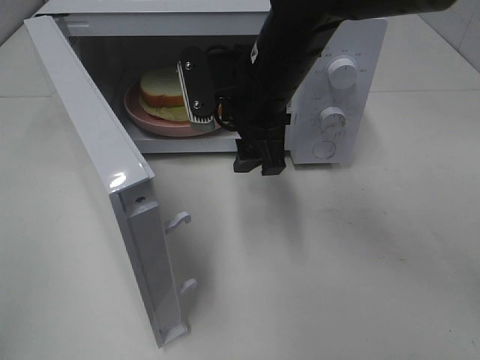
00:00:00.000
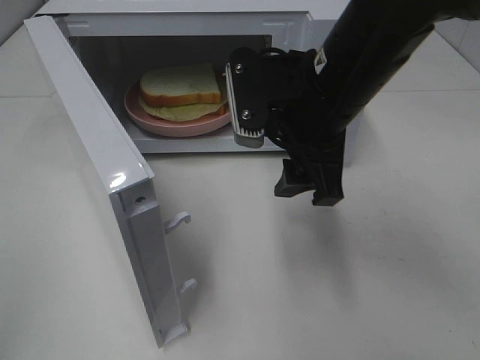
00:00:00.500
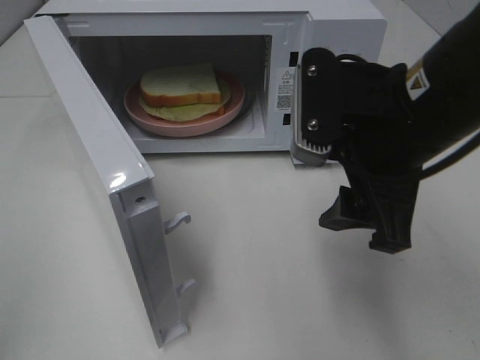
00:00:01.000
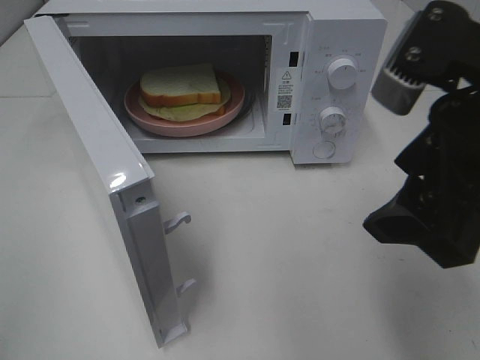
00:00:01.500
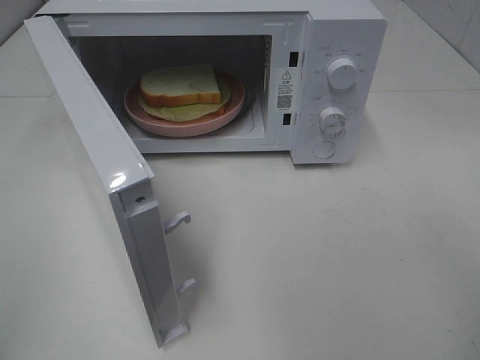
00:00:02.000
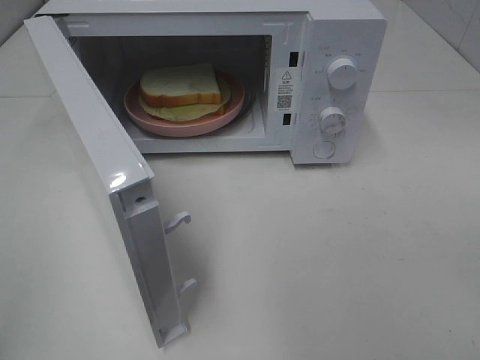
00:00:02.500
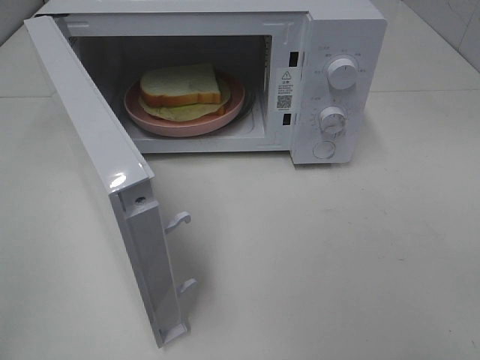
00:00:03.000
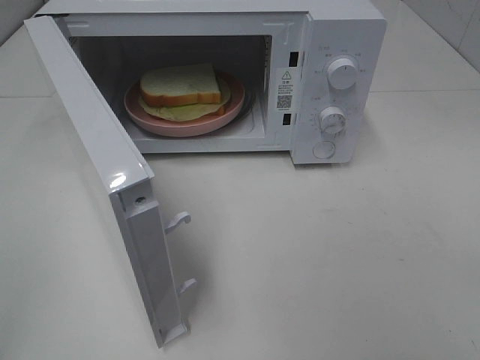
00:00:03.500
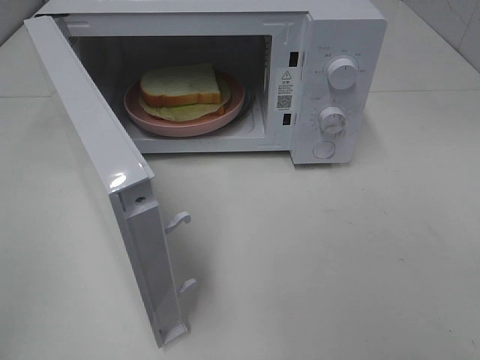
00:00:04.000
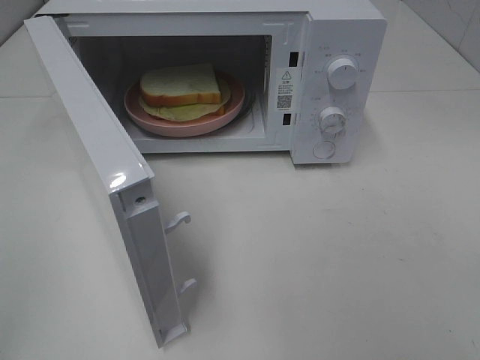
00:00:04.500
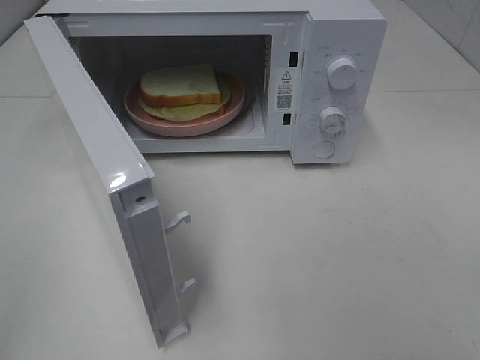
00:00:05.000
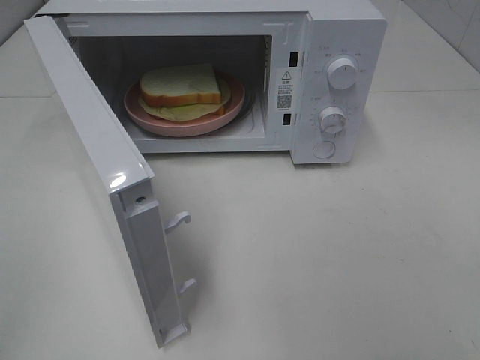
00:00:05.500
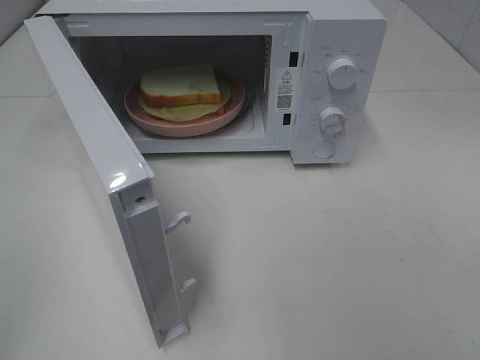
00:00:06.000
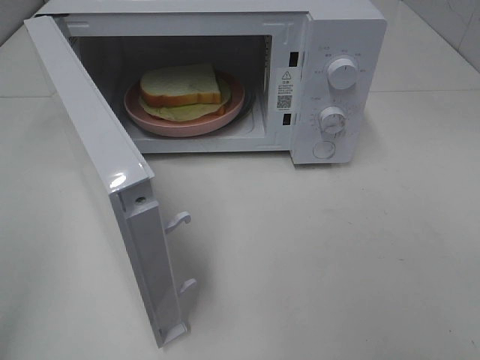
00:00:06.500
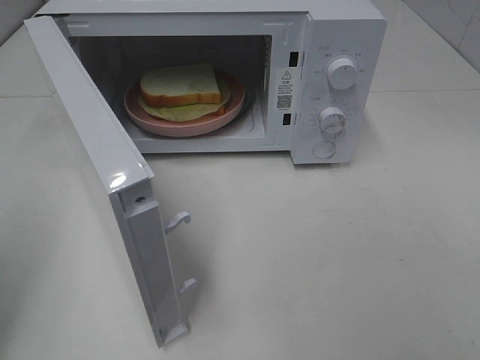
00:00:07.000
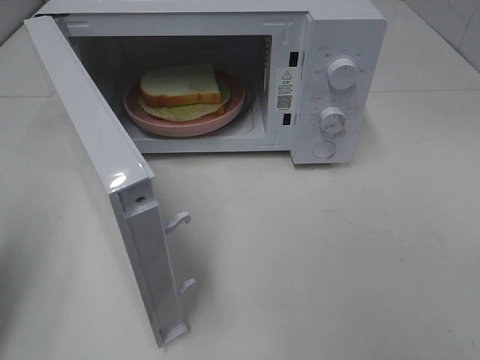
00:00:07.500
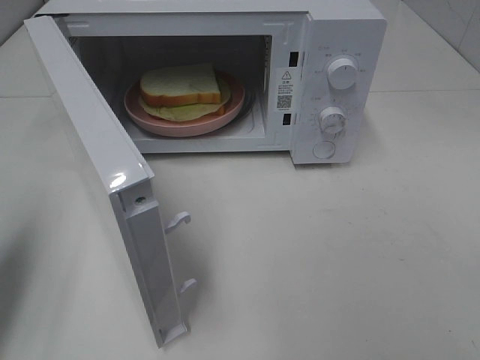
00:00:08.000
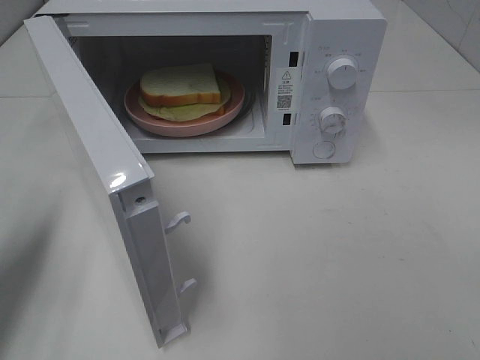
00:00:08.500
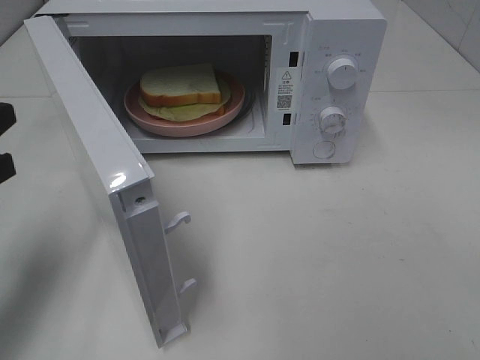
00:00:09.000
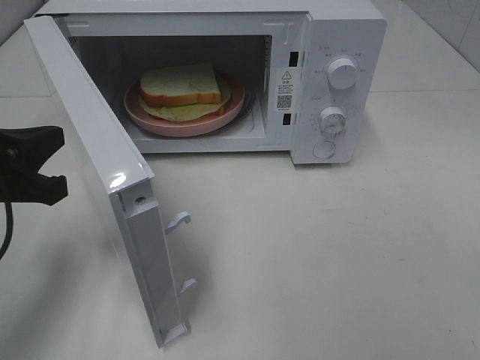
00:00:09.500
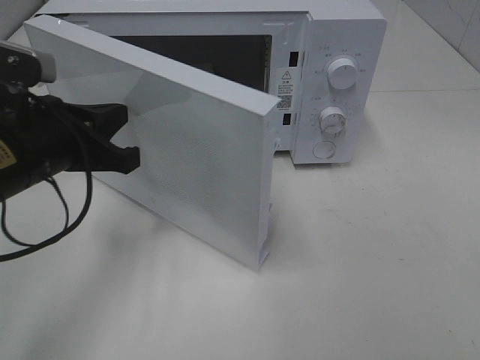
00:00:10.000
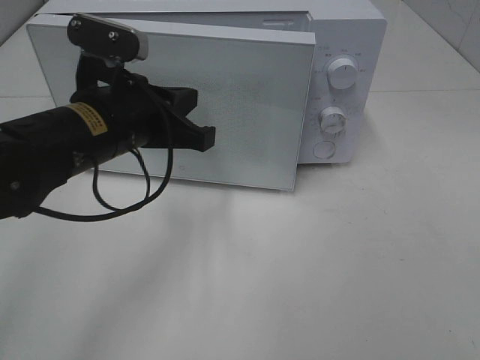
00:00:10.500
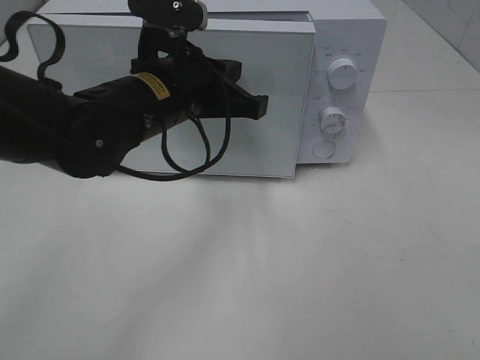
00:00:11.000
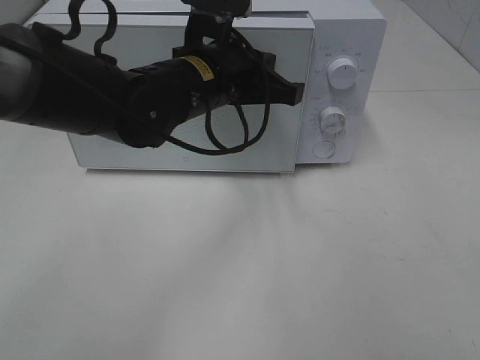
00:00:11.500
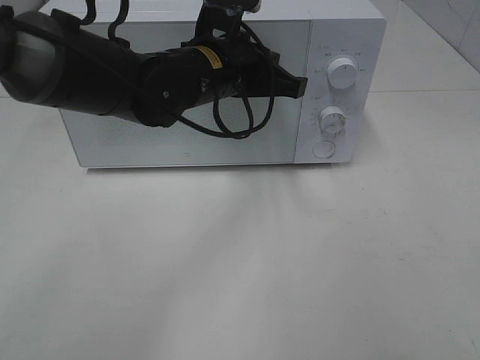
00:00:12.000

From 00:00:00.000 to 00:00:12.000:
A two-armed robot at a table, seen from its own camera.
Task of the whole recording: Heat Sandwich.
From 00:00:00.000 to 00:00:02.000: The right gripper is displaced backward and to the right by some 30 cm.
From 00:00:04.000 to 00:00:06.000: The two grippers keep their place.
From 00:00:06.000 to 00:00:08.000: The left gripper travels forward by about 15 cm, and closes.
From 00:00:08.000 to 00:00:10.000: The left gripper shifts about 15 cm to the right and forward.
From 00:00:10.000 to 00:00:12.000: The left gripper goes some 20 cm to the right and forward.

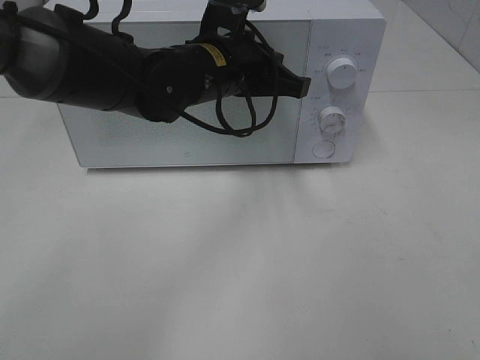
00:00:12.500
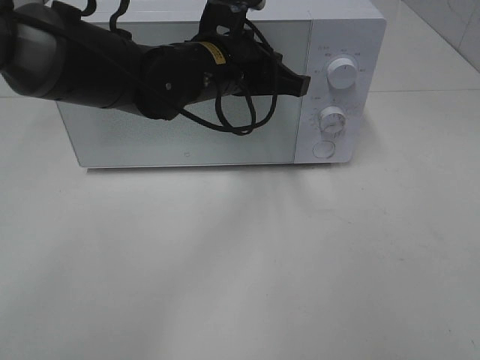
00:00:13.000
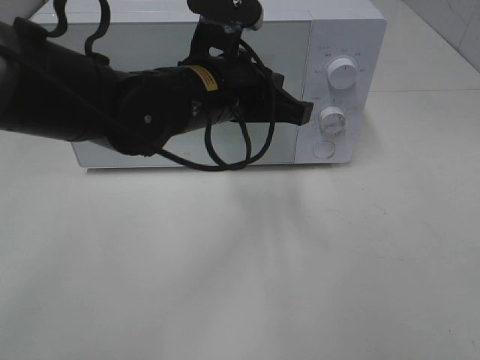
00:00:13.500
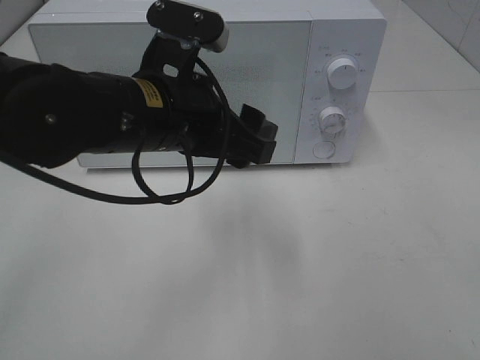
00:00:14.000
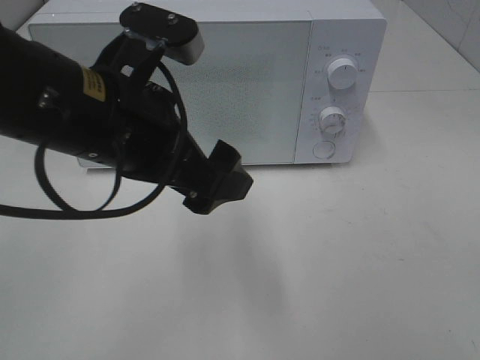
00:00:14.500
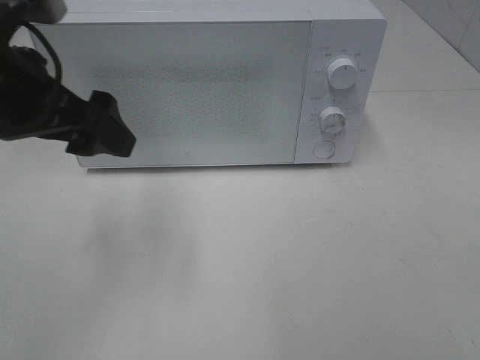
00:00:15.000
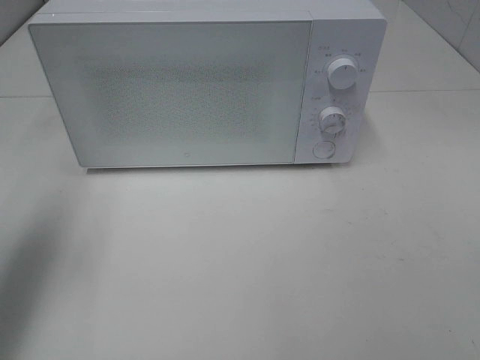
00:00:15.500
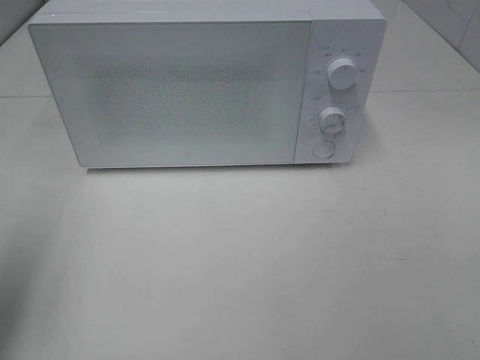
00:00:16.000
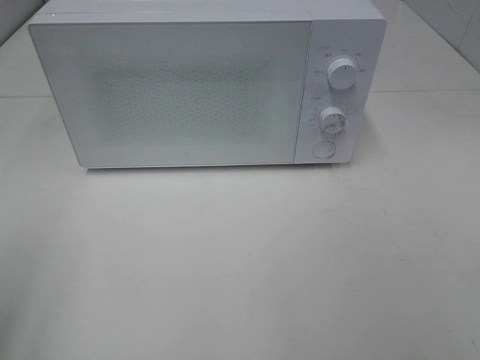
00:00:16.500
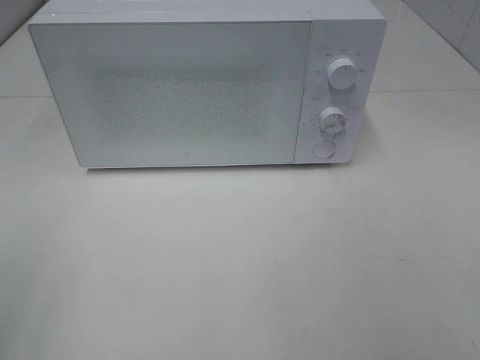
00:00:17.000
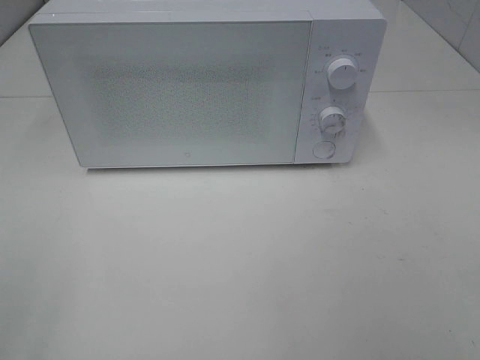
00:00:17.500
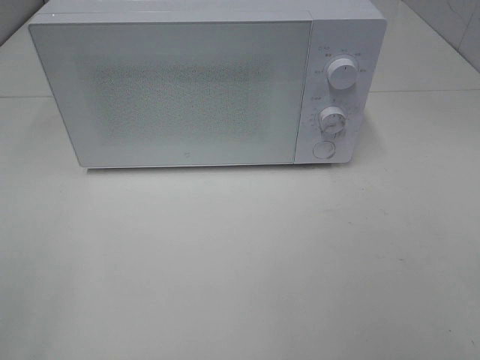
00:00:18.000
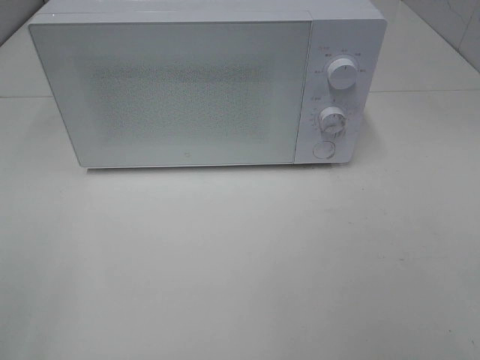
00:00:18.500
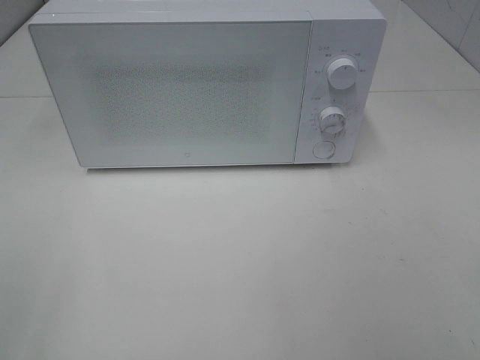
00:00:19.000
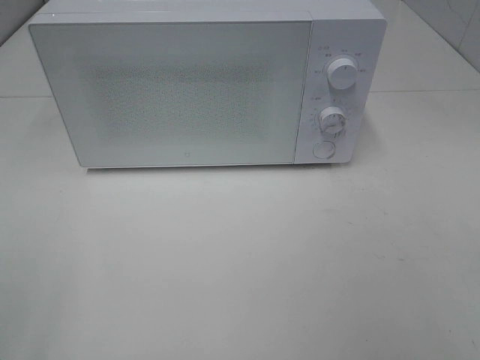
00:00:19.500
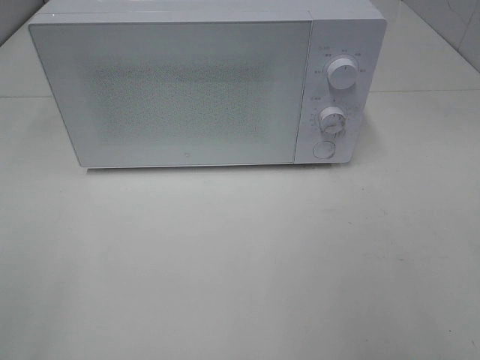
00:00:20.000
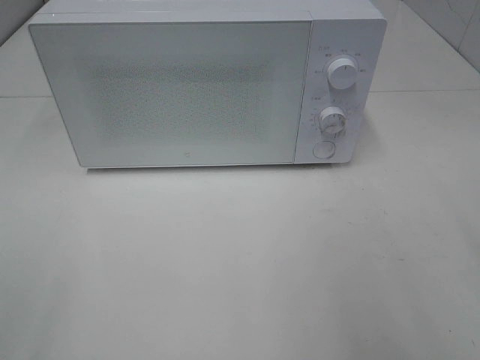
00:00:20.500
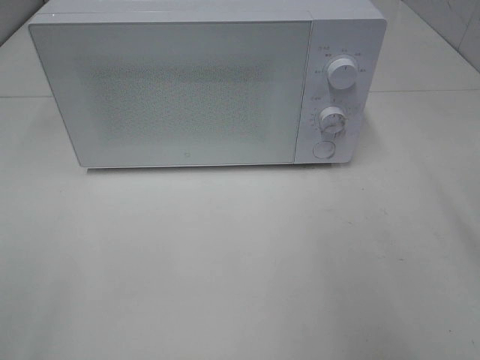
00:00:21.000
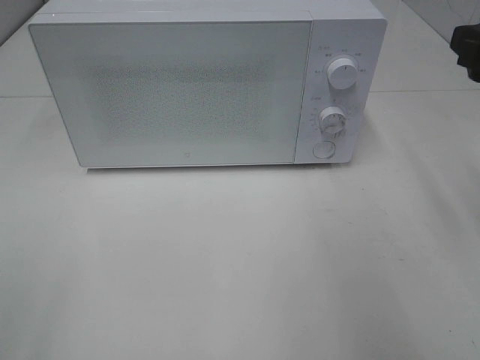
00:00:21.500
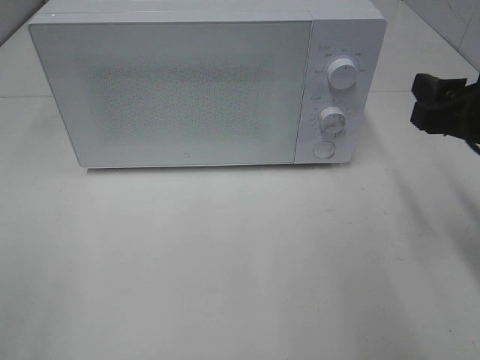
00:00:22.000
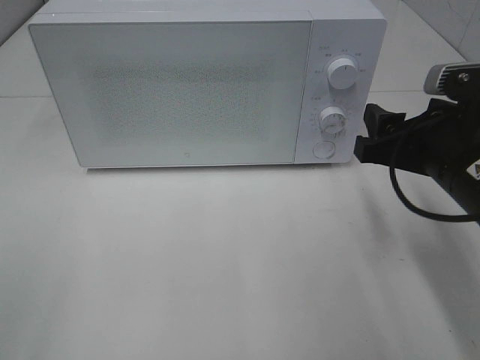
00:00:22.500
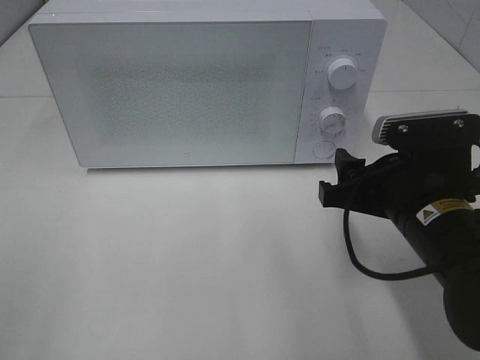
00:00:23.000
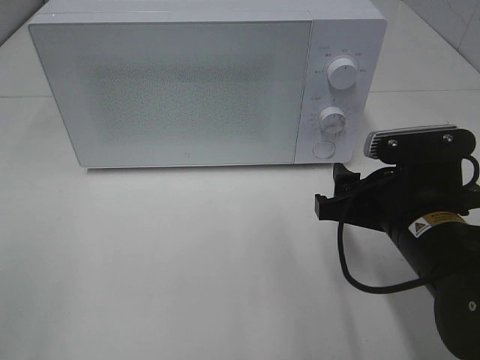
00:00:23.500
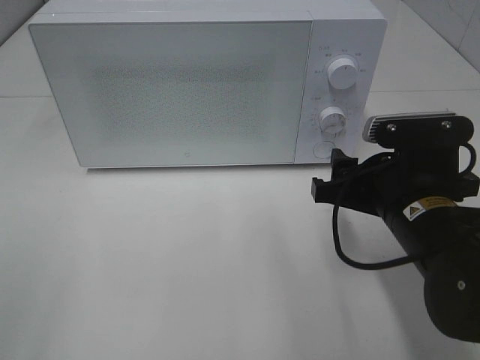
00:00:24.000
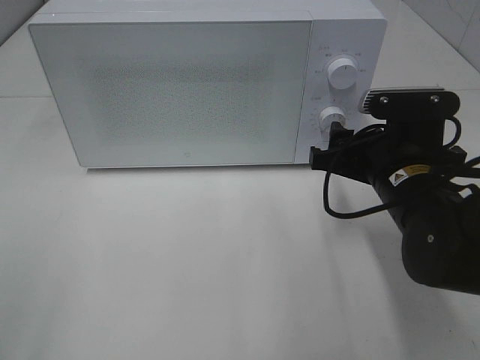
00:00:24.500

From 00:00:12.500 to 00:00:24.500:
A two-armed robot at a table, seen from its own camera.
Task of the whole recording: Heat Sandwich.
From 00:00:12.500 to 00:00:14.500: The left gripper is displaced backward and to the left by approximately 15 cm, and opens its fingers.
From 00:00:14.500 to 00:00:16.500: The left gripper heads to the left and backward, covering roughly 25 cm.
From 00:00:20.500 to 00:00:22.500: The right gripper heads downward, forward and to the left, covering roughly 20 cm.
From 00:00:22.500 to 00:00:24.500: The right gripper ends up roughly 5 cm from where it was.

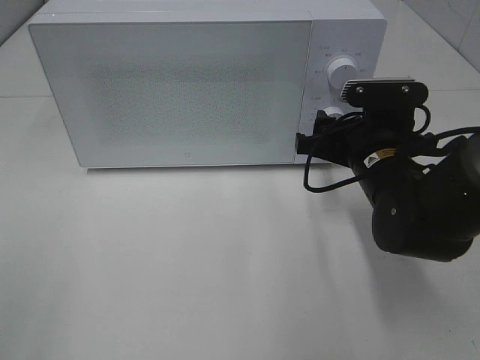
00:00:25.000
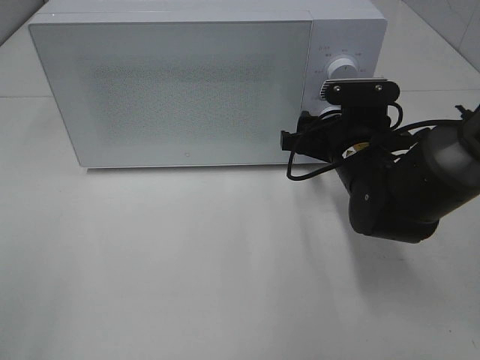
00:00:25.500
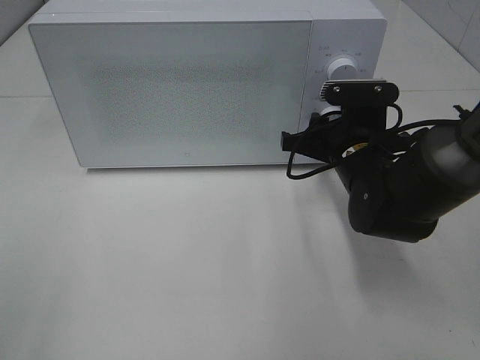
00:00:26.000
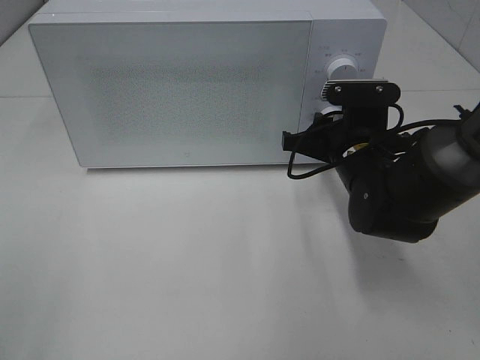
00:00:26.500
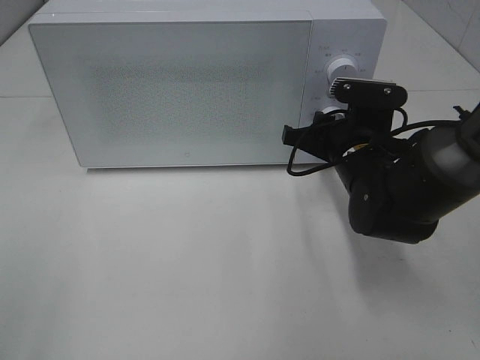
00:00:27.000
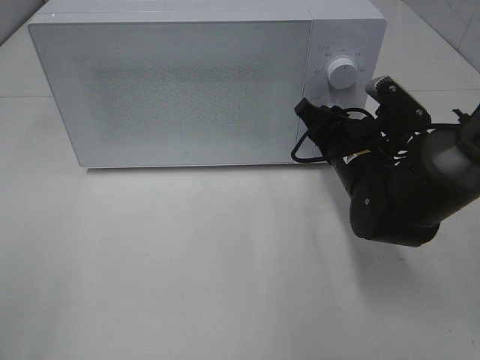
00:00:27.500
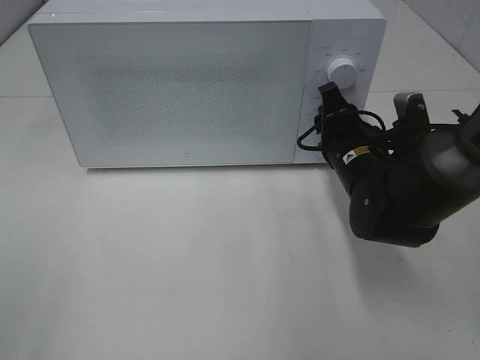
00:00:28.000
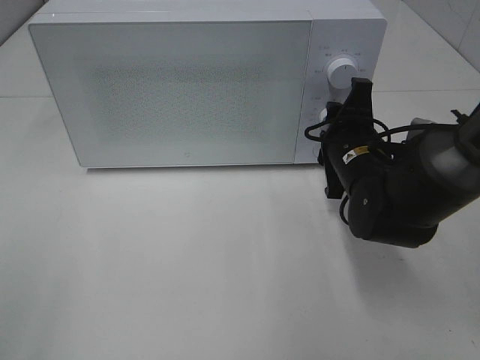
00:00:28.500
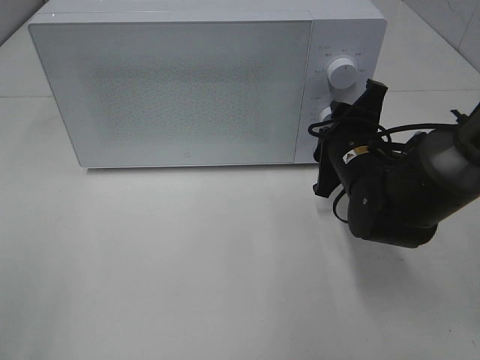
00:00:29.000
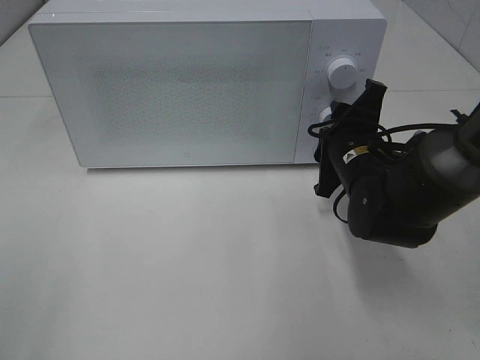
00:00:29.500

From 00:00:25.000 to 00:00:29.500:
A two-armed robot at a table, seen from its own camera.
Task of the whole recording: Heat Sandwich.
From 00:00:25.000 to 00:00:27.000: The grippers stay close to where they were, moving slightly.
